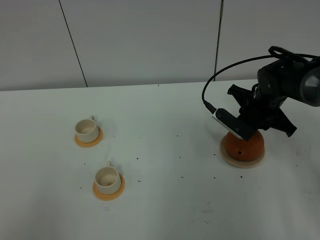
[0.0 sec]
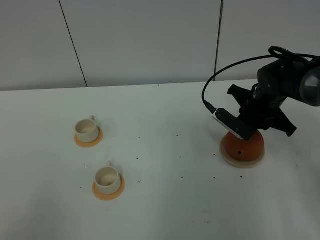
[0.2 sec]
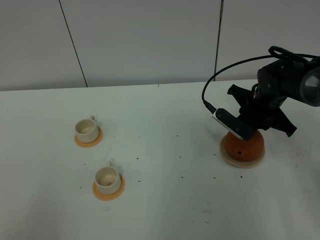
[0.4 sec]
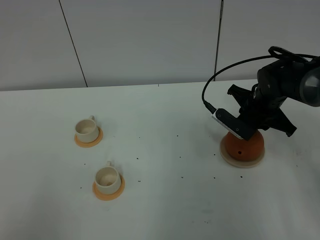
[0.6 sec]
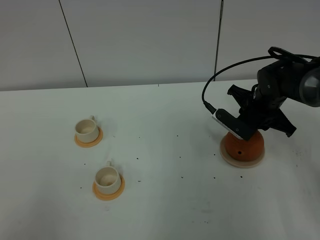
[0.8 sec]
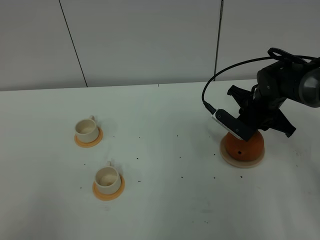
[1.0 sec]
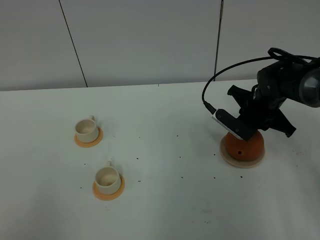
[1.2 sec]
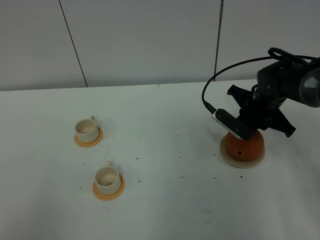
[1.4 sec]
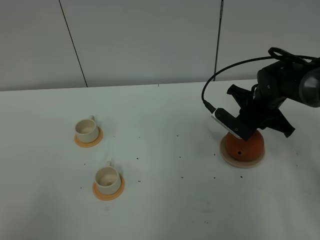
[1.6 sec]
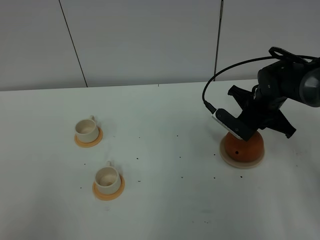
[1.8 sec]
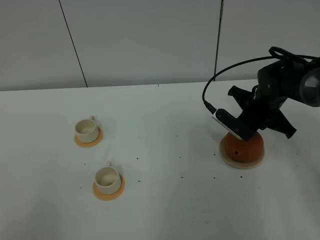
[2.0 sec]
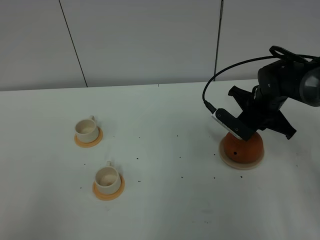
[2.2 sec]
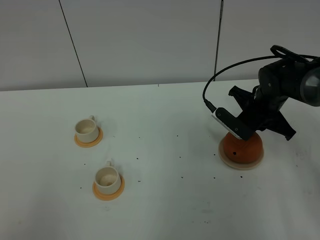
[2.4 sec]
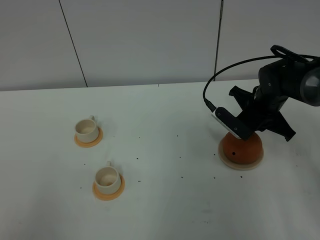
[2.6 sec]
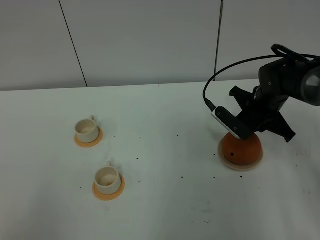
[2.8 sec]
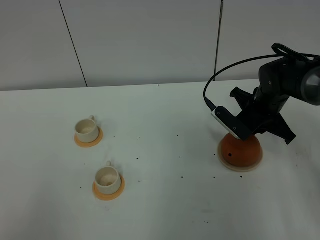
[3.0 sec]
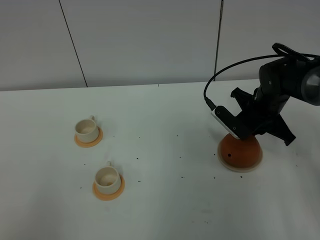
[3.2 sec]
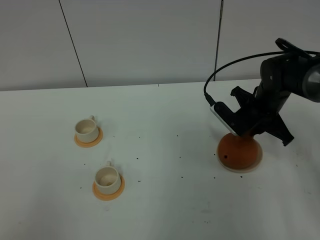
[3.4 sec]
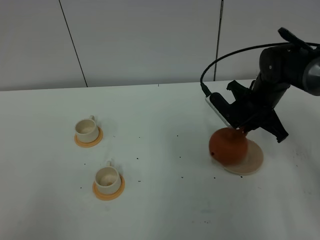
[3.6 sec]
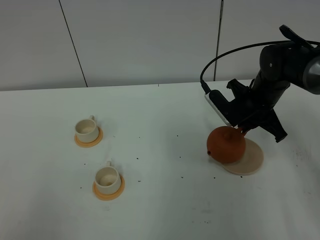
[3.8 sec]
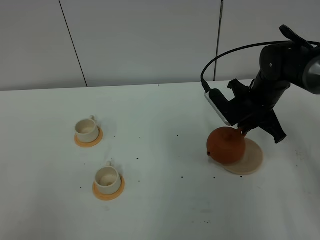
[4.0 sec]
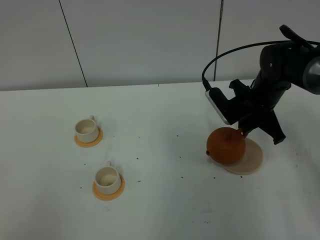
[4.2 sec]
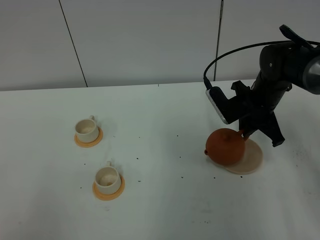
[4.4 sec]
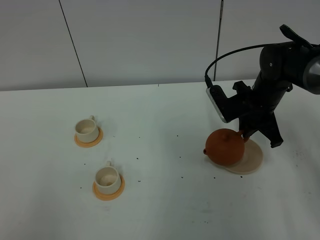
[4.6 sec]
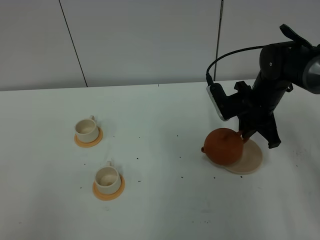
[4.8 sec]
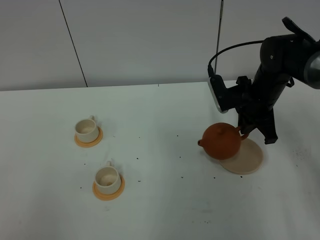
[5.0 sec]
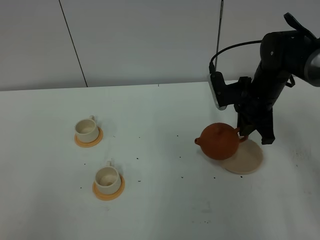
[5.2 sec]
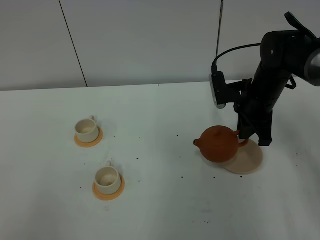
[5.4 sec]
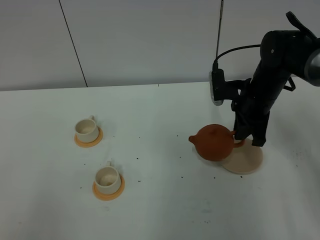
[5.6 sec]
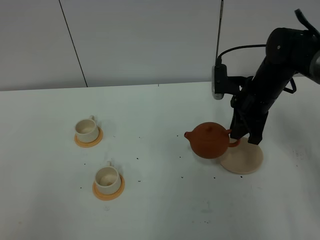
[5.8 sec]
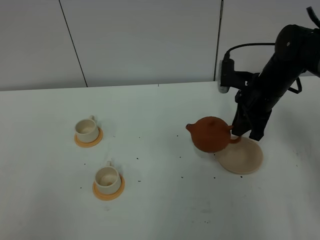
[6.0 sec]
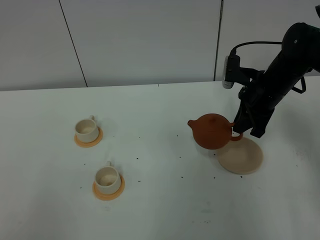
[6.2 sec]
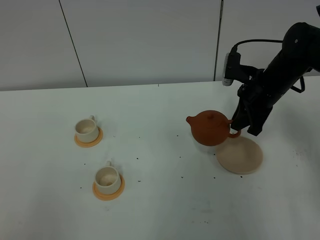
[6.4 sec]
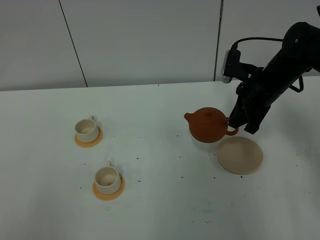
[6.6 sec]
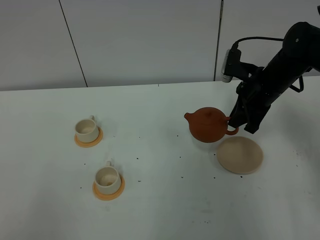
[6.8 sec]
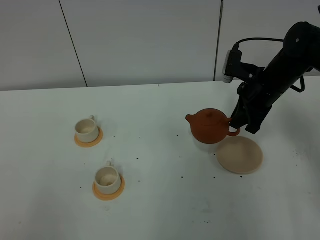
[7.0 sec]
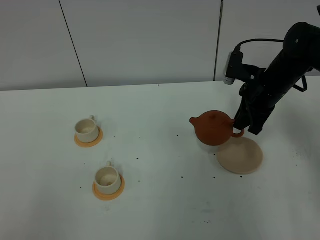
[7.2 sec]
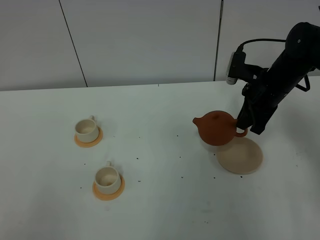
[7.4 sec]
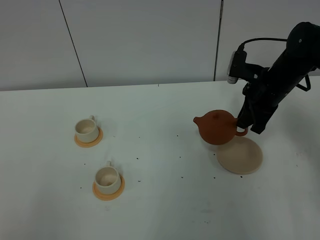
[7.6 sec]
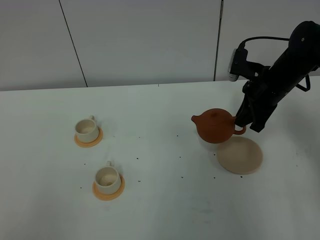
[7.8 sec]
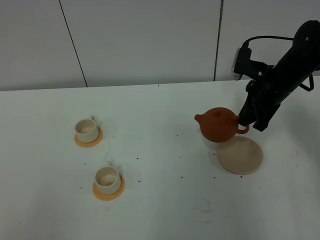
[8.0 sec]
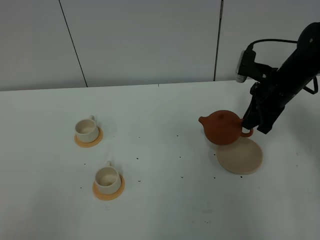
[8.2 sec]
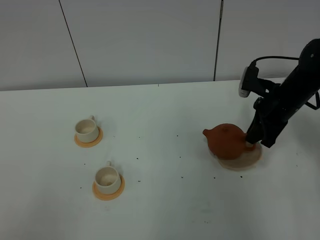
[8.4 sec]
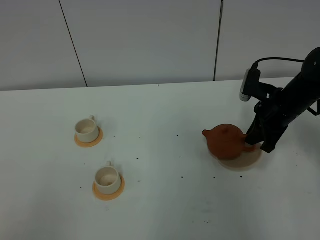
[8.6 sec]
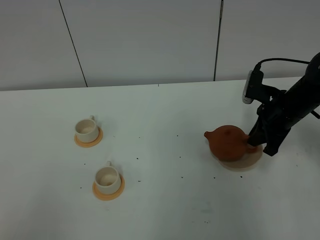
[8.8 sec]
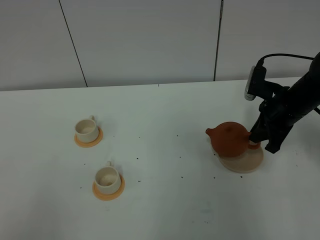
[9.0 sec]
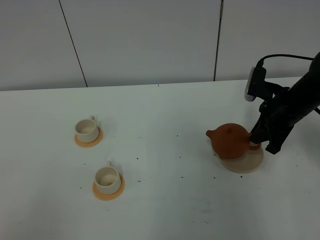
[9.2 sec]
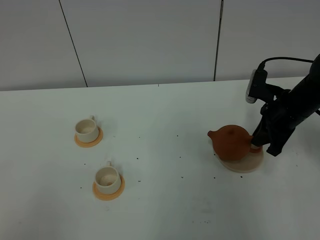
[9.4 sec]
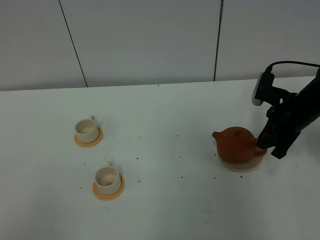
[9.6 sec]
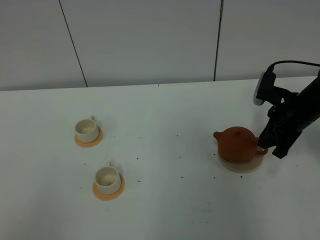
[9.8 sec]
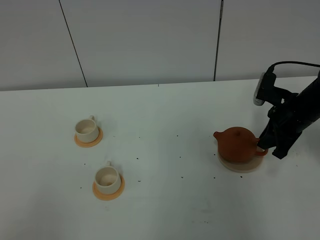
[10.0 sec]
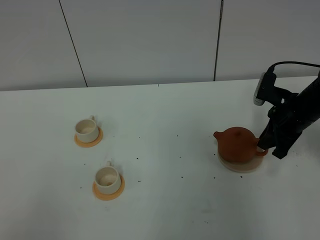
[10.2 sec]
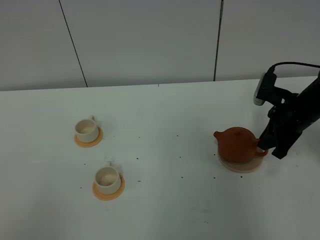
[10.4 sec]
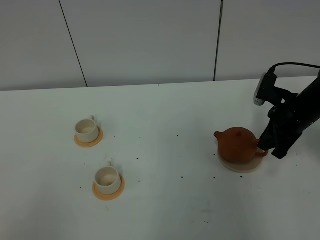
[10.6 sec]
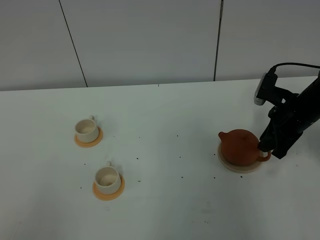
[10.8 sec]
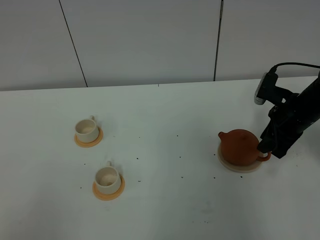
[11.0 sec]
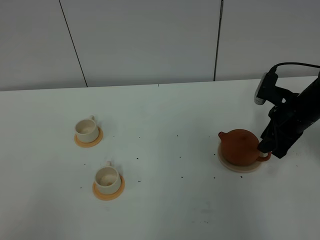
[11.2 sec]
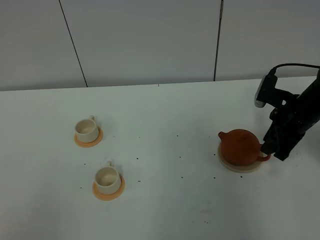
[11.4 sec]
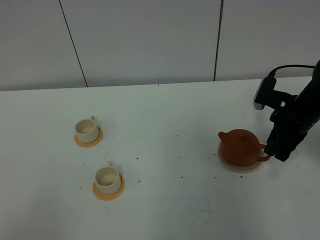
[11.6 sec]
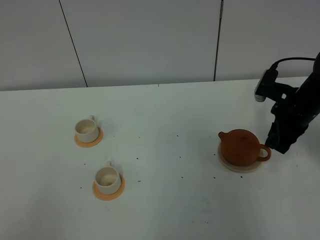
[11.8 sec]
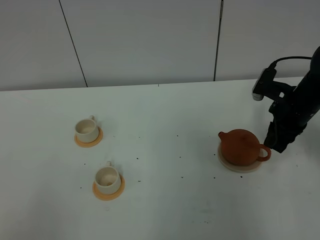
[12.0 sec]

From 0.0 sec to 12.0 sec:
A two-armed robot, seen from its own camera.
Task of the whole recording: grasp the brown teapot and pour the tea into the two white teacups one by one, put the brown teapot back in its original place.
From 0.0 sec to 1.6 sec: Neither gripper changes place.
From 1.6 sec to 3.0 sec: The grippers make only small movements.
From 6.0 sec to 7.6 sec: The grippers move only a little.
From 7.6 sec to 9.0 sec: The right gripper ends up about 5 cm from where it was.
From 9.0 sec to 12.0 sec: The grippers move only a little.

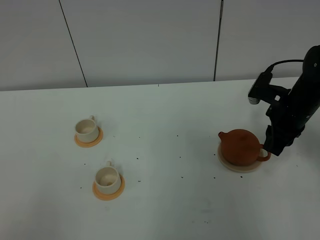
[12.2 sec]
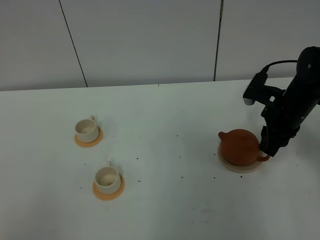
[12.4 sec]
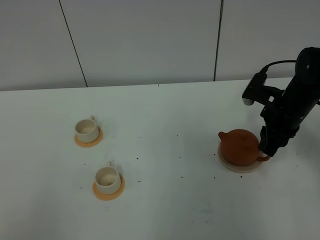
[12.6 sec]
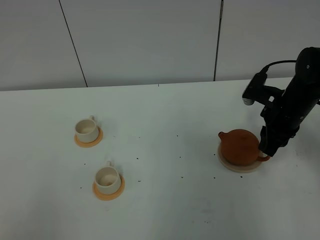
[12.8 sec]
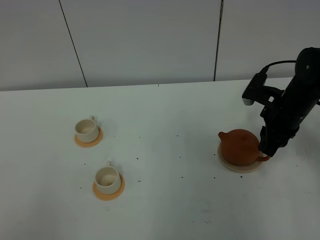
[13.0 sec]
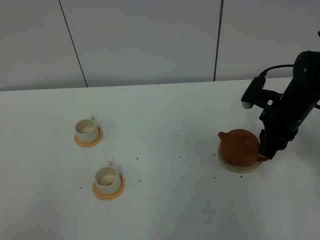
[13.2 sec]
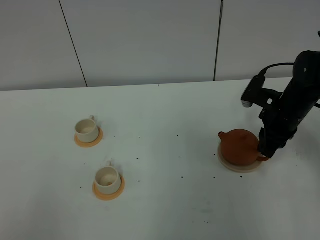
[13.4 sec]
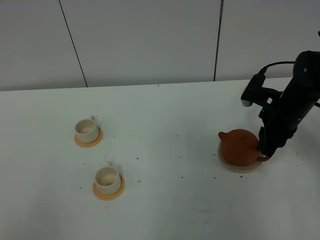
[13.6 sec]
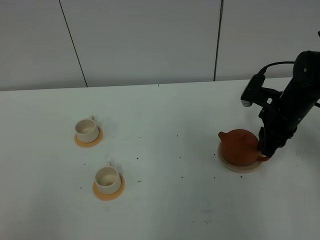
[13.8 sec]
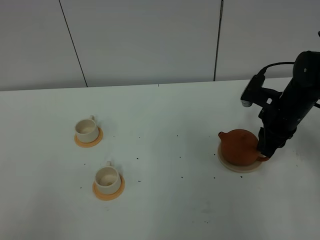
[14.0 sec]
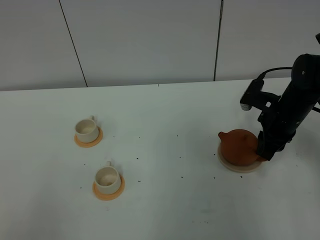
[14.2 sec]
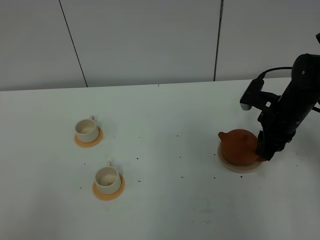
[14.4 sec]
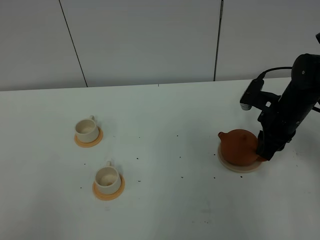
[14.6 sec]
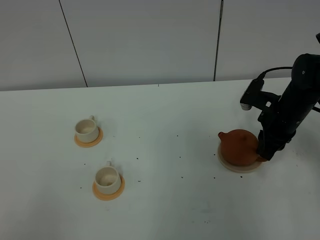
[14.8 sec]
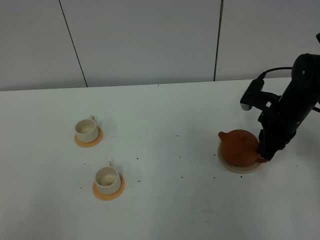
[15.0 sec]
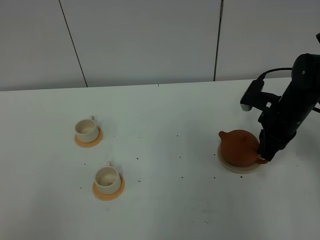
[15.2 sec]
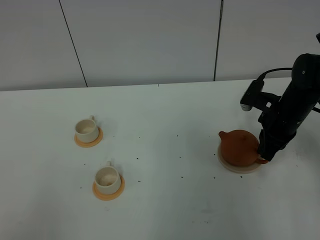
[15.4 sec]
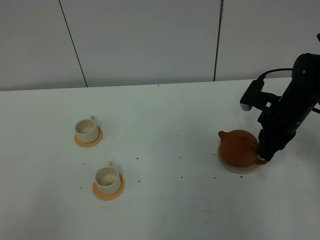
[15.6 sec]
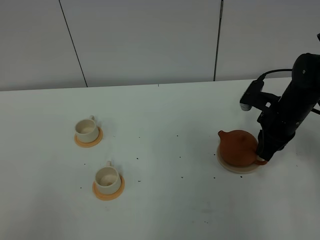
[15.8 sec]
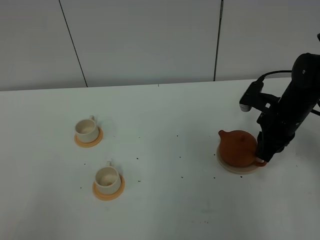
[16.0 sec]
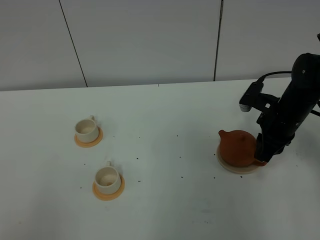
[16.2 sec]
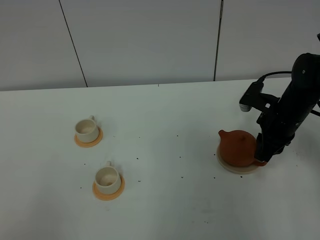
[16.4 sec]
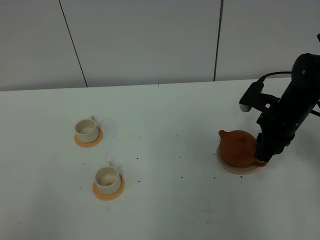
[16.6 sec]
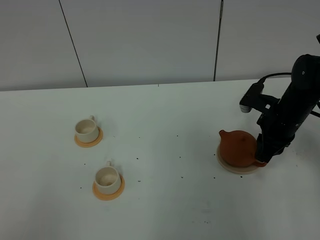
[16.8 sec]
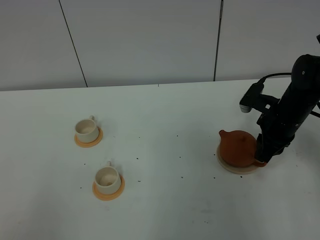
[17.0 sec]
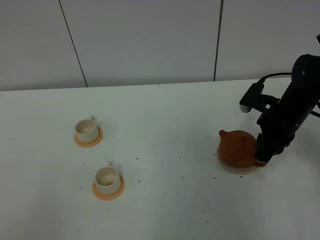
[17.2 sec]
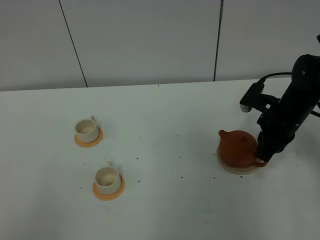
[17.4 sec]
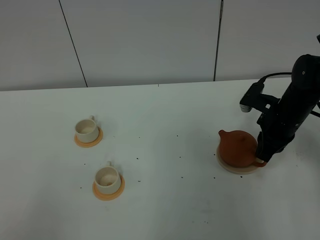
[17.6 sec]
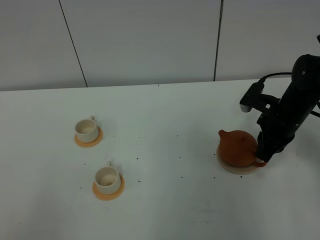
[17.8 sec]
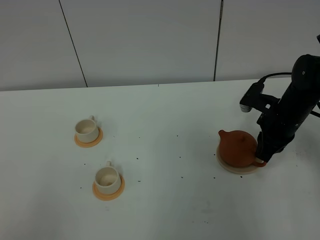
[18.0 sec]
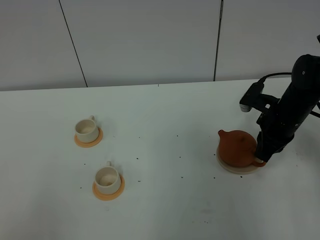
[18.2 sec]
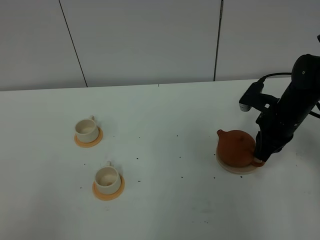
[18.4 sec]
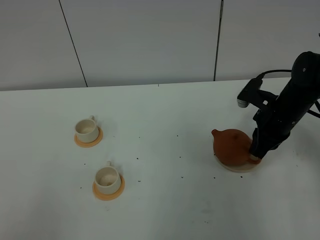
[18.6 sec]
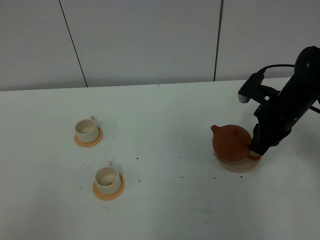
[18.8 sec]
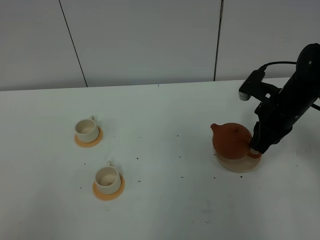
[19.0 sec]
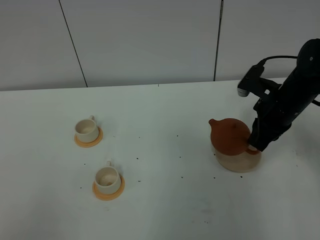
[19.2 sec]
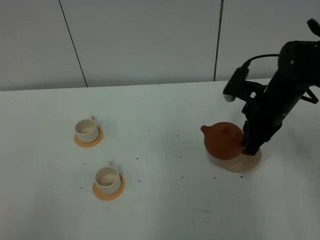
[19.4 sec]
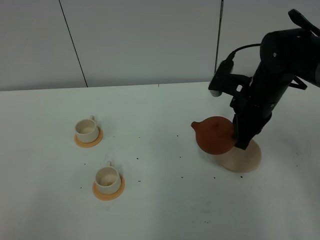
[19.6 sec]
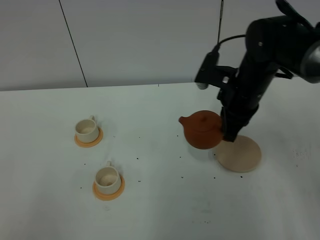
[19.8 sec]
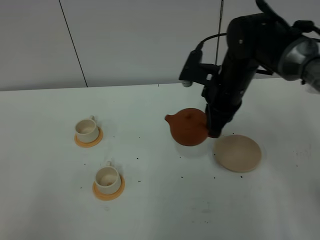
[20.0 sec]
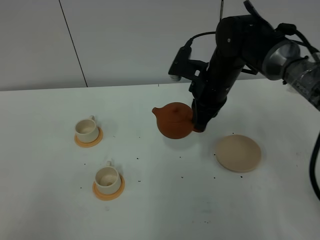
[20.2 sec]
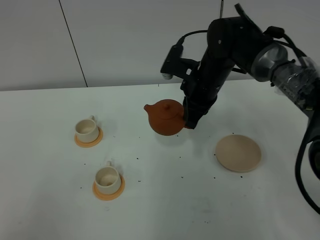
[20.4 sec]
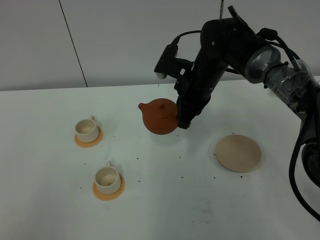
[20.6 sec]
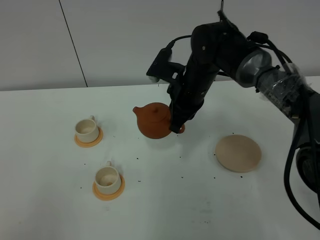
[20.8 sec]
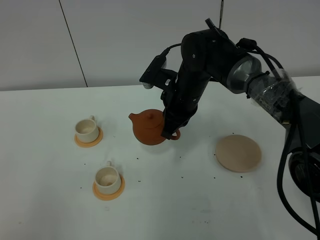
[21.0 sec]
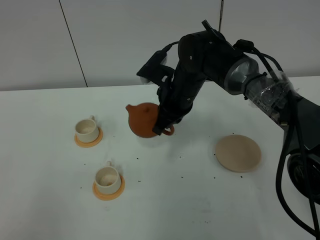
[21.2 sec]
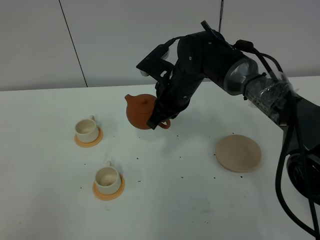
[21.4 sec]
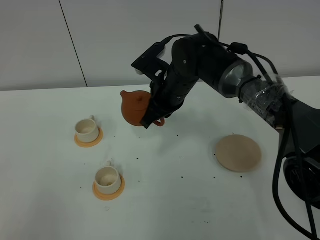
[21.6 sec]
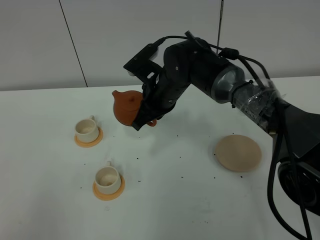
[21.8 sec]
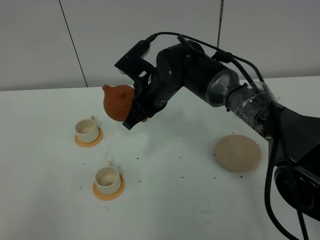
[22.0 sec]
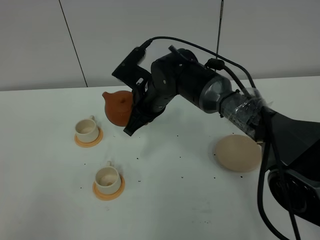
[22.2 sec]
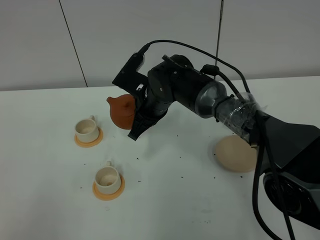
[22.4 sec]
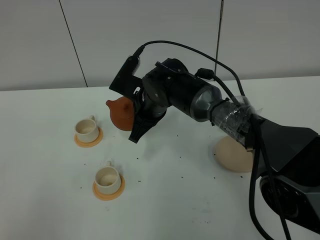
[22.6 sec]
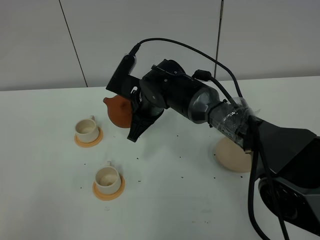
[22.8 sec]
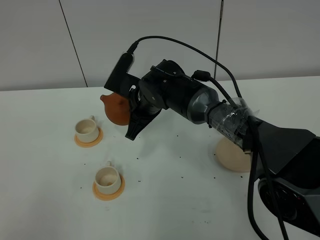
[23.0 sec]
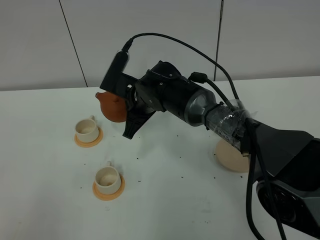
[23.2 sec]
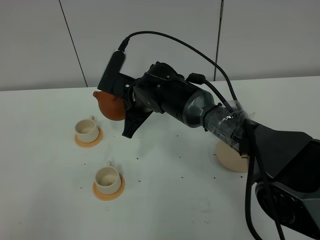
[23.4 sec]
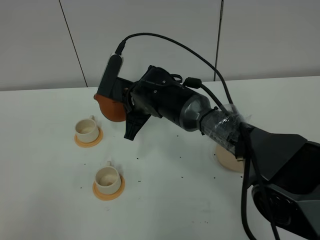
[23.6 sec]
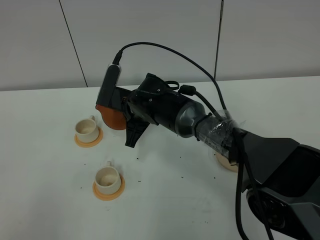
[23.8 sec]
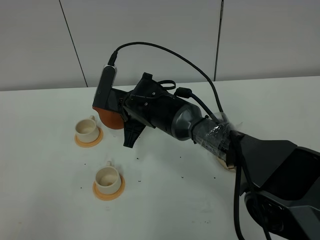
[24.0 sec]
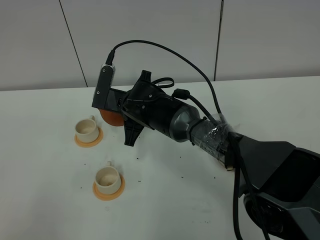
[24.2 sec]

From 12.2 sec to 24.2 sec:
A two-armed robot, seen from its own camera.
Task of the whole recording: grasp the brown teapot and pour the tea into the two white teacups one by one, put the brown teapot back in its original place.
Step, from 12.2 sec to 19.2 sec: Pick up the teapot with the right gripper.
From 12.2 sec to 13.8 sec: The two grippers keep their place.
From 13.8 sec to 15.2 sec: The right gripper closes its fingers.
From 15.2 sec to 18.2 sec: The two grippers keep their place.
From 18.2 sec to 19.8 sec: The right gripper shifts approximately 15 cm to the left and upward.
From 19.8 sec to 21.2 sec: The right gripper goes some 10 cm to the left.
From 21.2 sec to 22.6 sec: The right gripper goes approximately 5 cm to the left.
